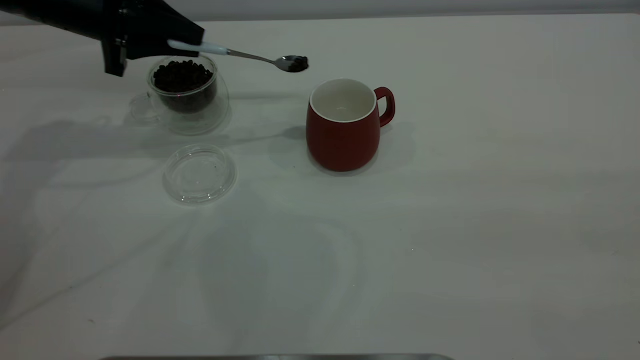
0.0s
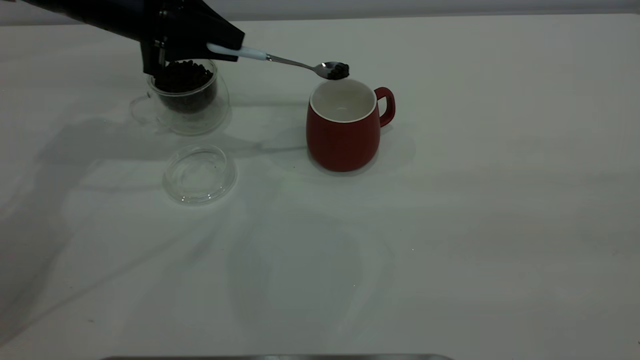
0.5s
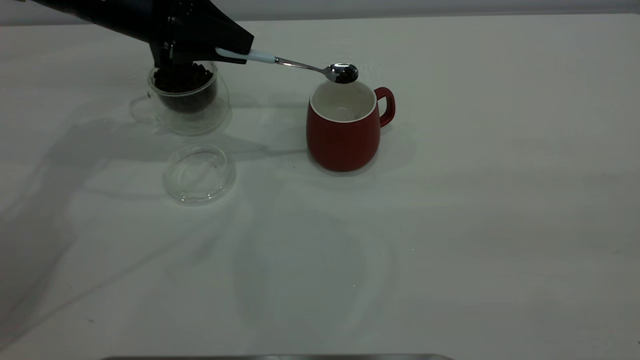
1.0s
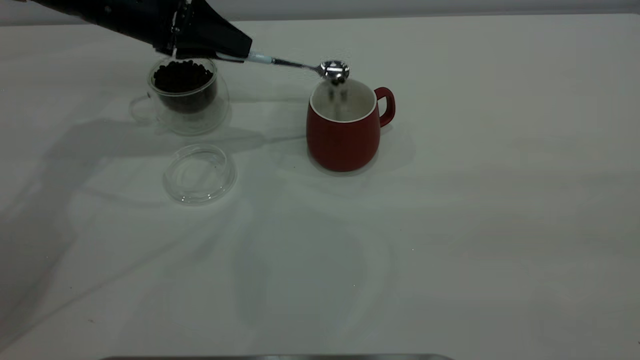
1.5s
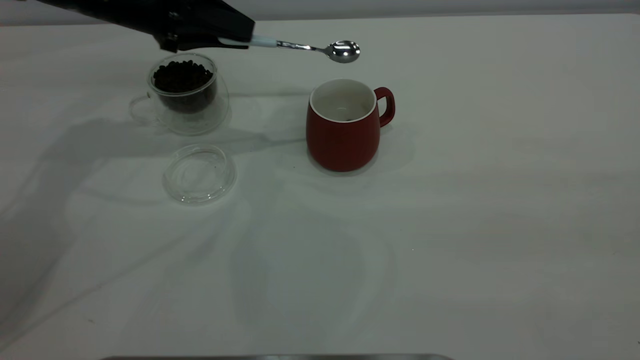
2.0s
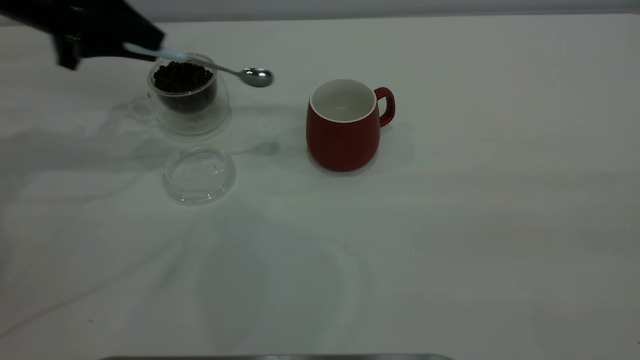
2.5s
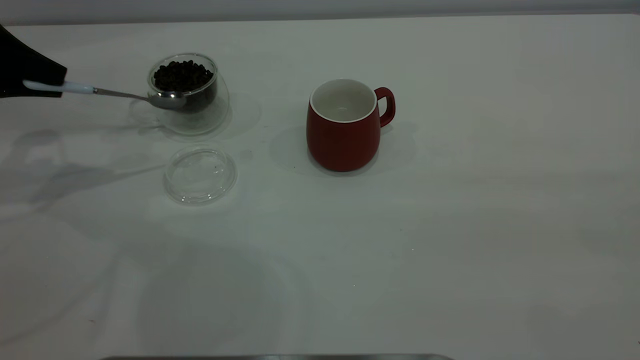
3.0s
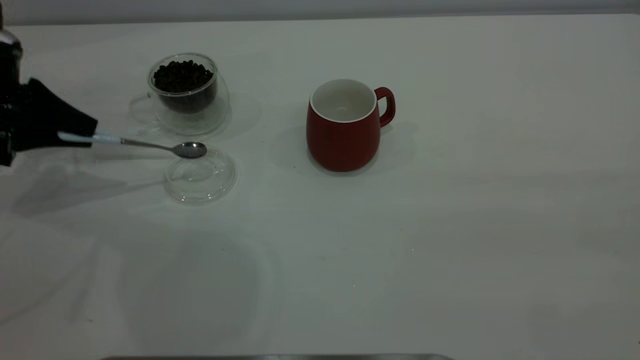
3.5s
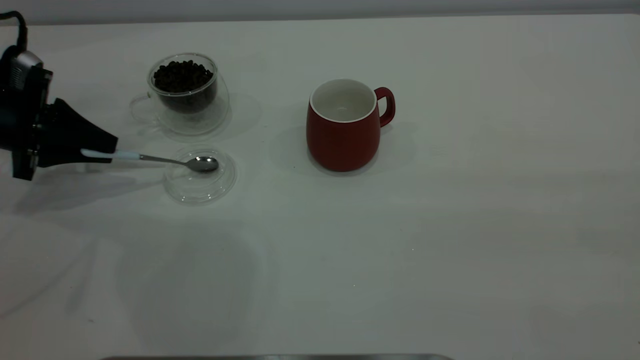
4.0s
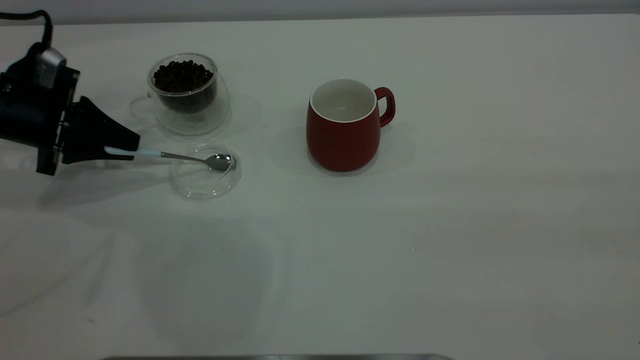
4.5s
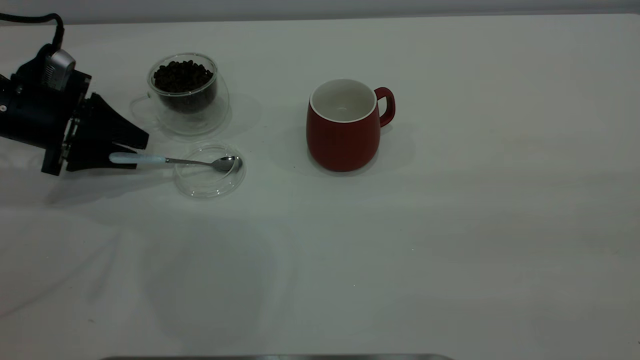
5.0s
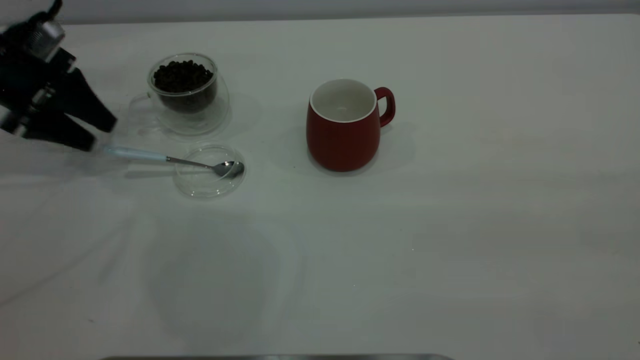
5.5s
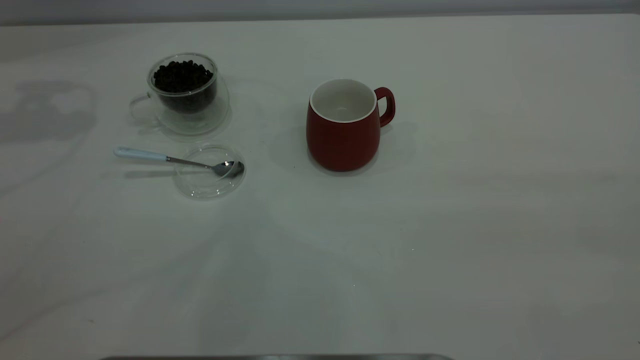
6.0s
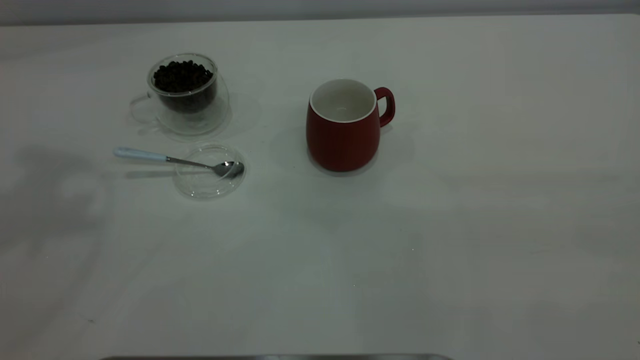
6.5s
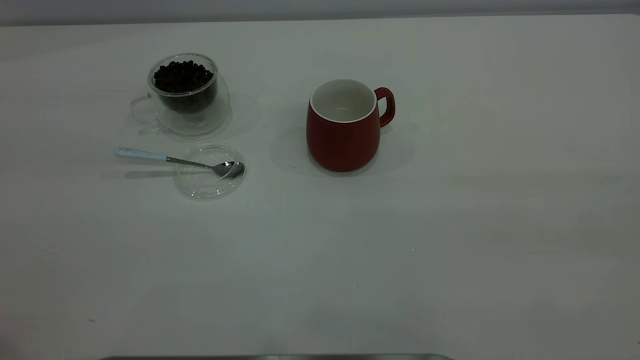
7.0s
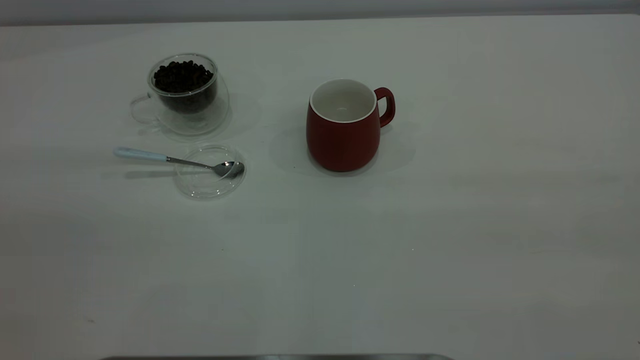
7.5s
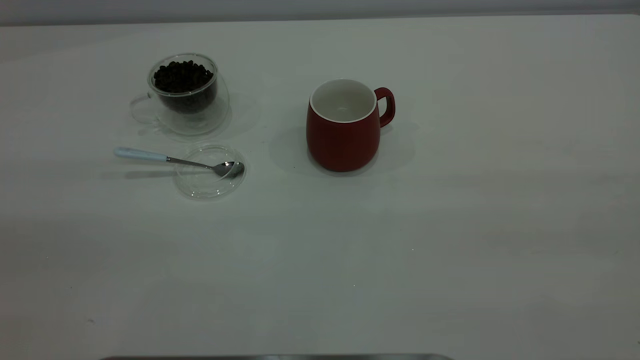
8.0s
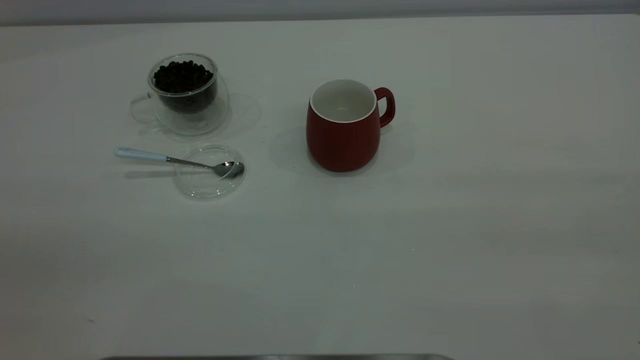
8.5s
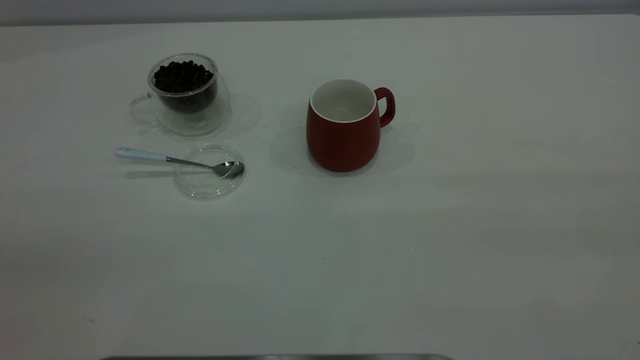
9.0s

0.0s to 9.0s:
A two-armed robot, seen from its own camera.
Task of the whole recording: the right gripper place the red cup in the center of the table, the left gripper take the blue spoon from the cup lid and scoop out the coffee beans from the coffee cup and put them into the red cup, the left gripper put the spoon back into the cup lid.
Step, 0.0s to 2.0s: Scoop a spoonful of beans into the cup.
Step, 2.5s to 5.5s: Place the spoon back in its original place.
2.0s to 4.5s: The left gripper goes some 15 cm to the left, downward and backward.
4.5s to 7.0s: The left gripper is displaced upward and backward by roughly 40 cm, and opens up.

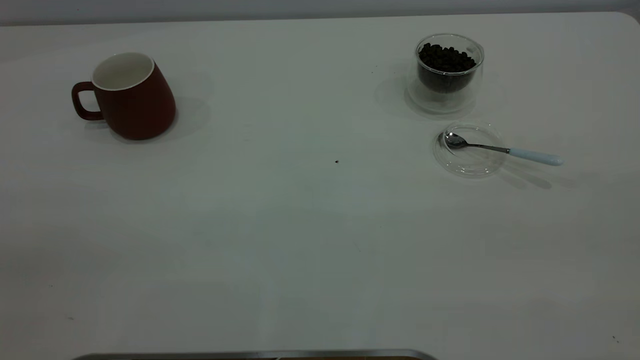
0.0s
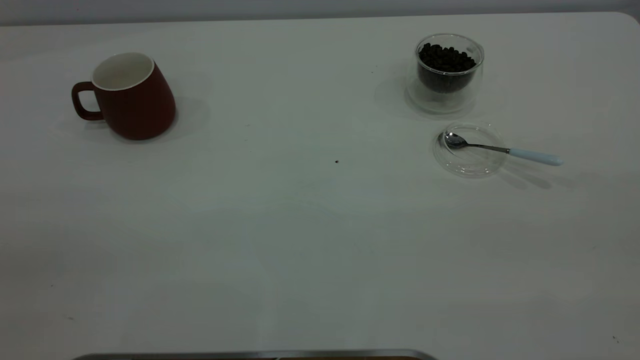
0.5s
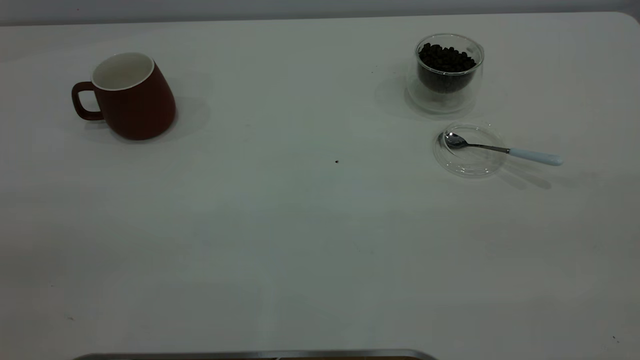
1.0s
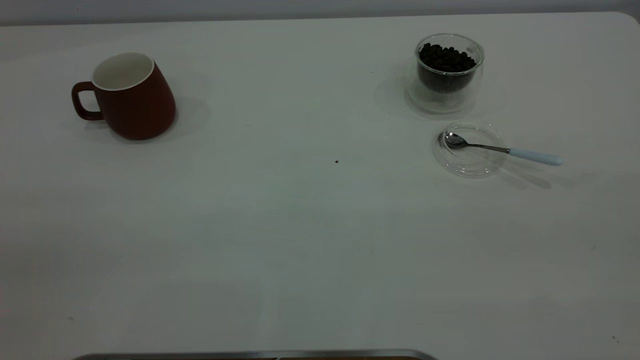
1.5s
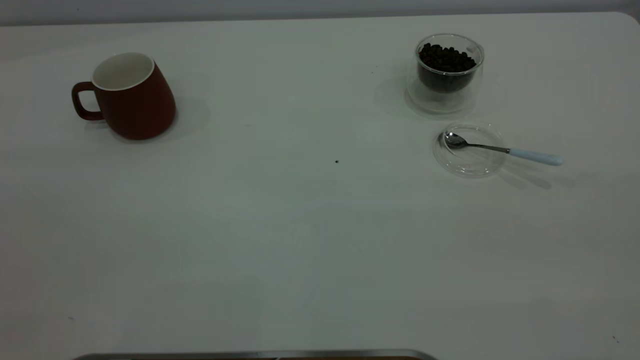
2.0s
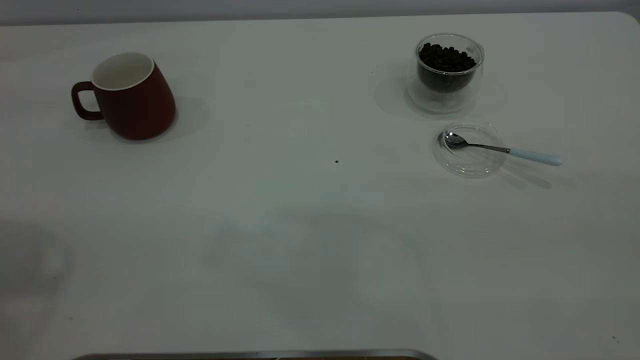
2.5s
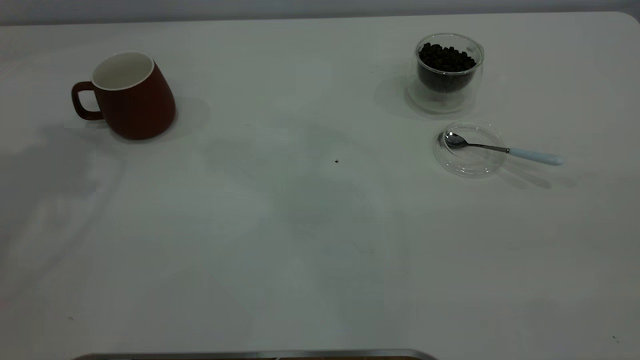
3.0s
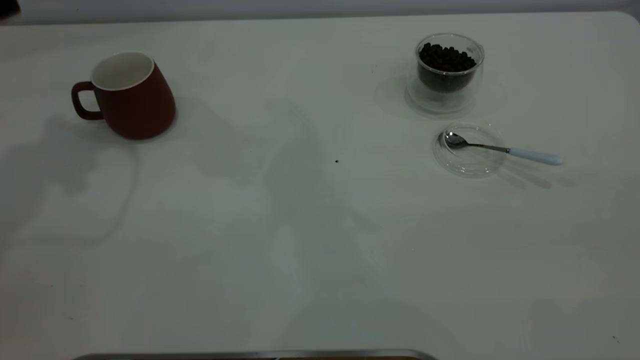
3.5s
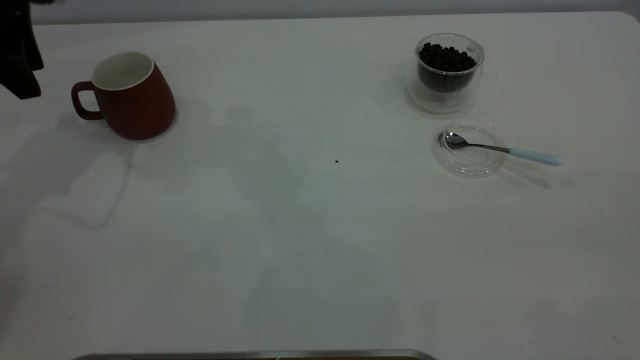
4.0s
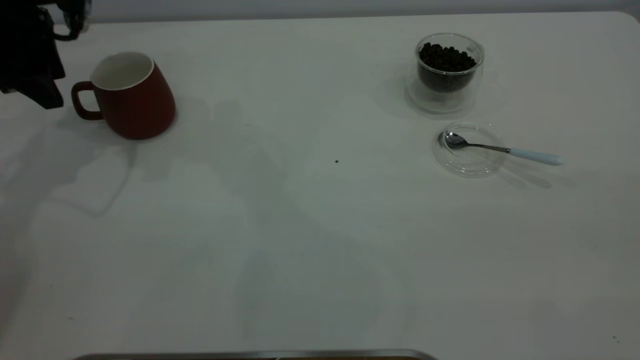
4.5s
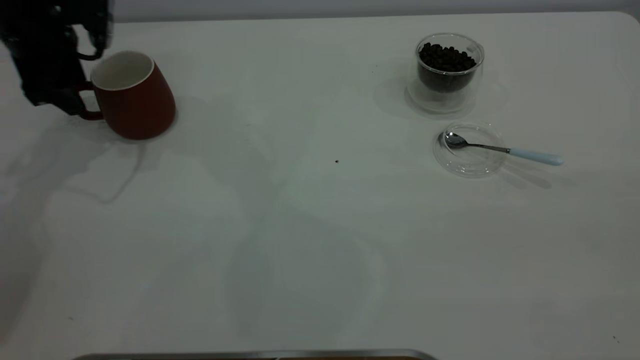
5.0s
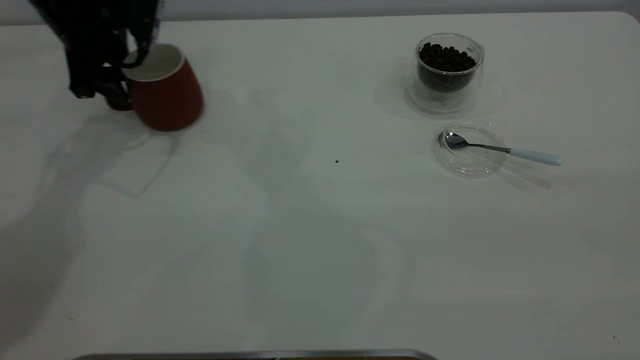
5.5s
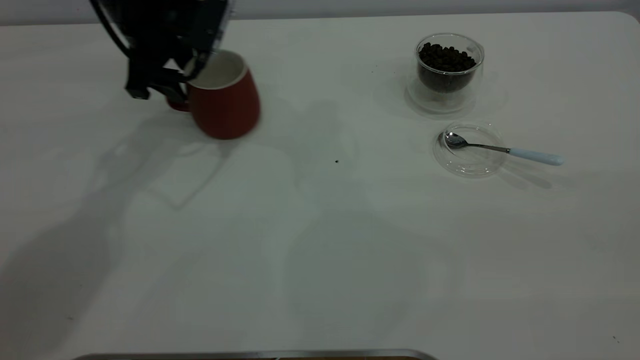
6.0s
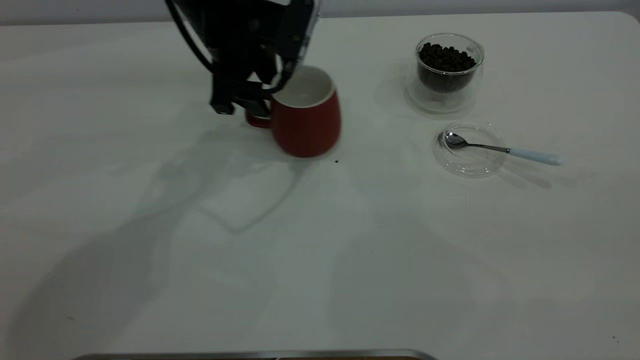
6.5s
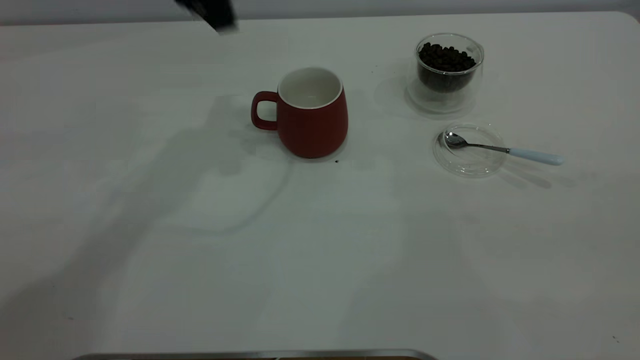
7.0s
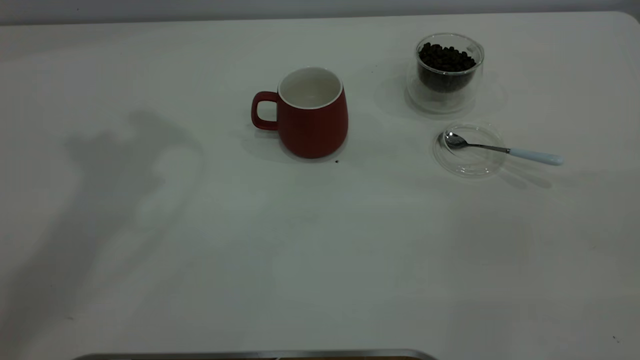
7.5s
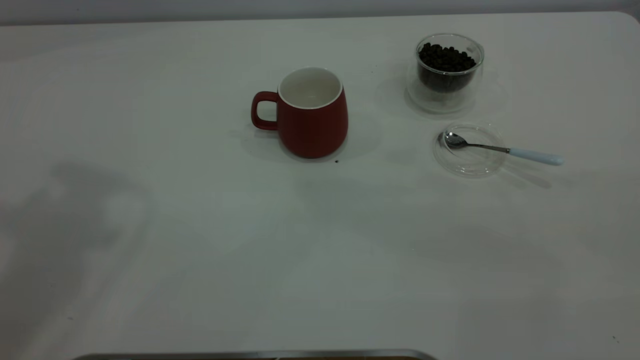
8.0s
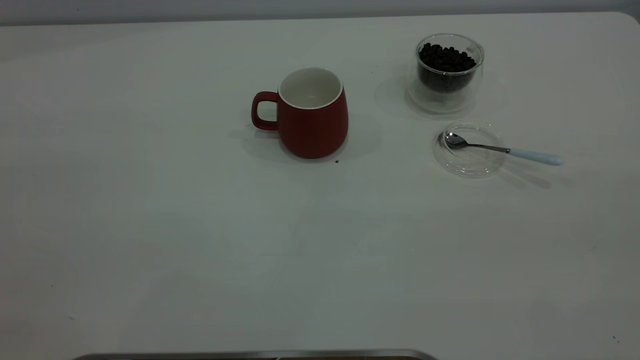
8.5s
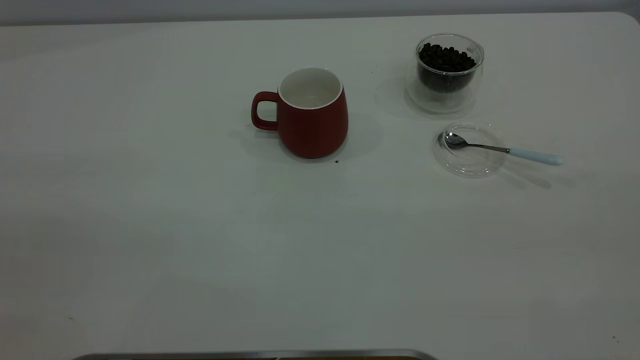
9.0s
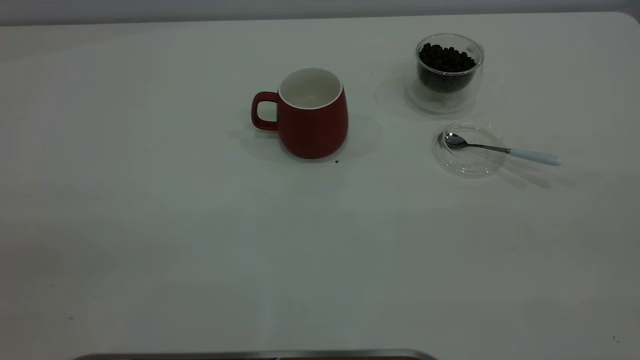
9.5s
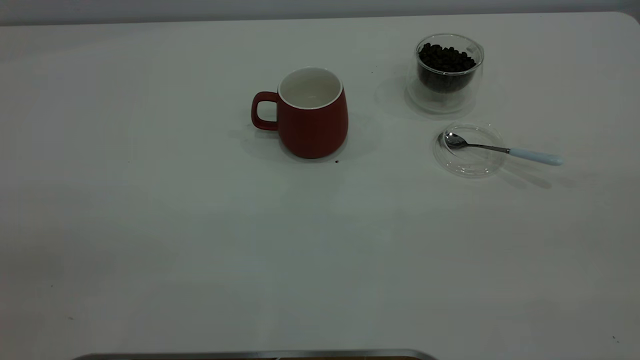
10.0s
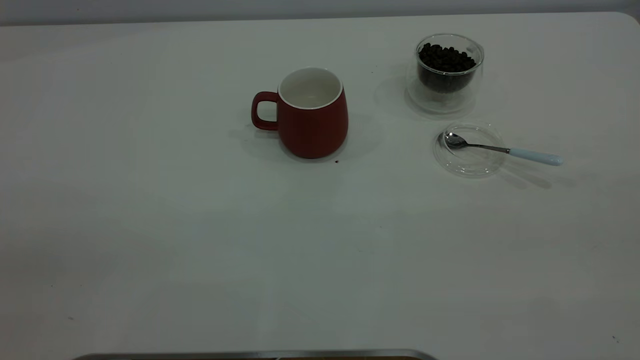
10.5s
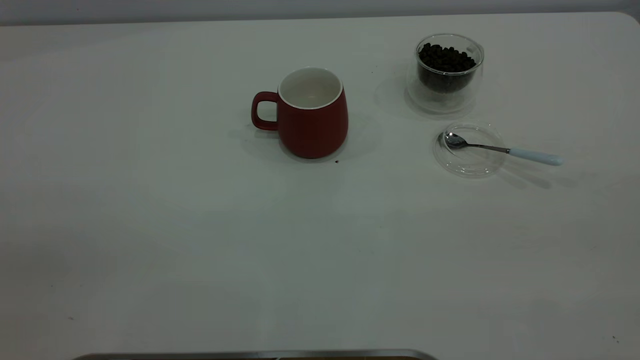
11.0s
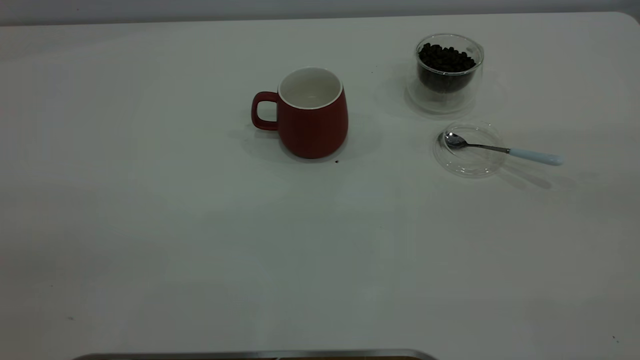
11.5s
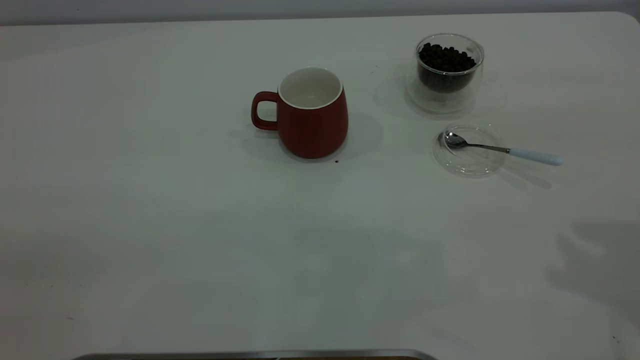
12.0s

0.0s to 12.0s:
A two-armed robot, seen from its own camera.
Task of the whole recording: the left gripper place the red cup in the center of the table, the right gripper take the blue spoon from the cup lid and scoop out the coffee beans from the coffee cup and put them into the red cup, the right gripper put the spoon back into the cup lid.
Step, 0.0s to 6.5s: Move the cup to the center of view.
2.0s to 4.0s: The left gripper heads forward and downward, covering roughly 40 cm.
4.0s to 6.0s: The left gripper moves to the right and downward, some 15 cm.
6.0s to 8.0s: The left gripper travels upward and backward by about 40 cm.
